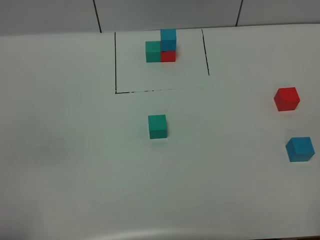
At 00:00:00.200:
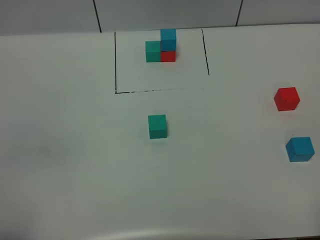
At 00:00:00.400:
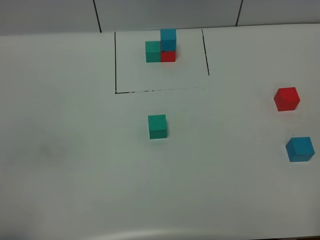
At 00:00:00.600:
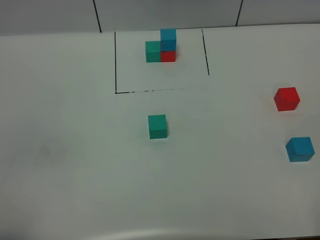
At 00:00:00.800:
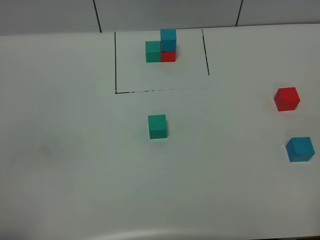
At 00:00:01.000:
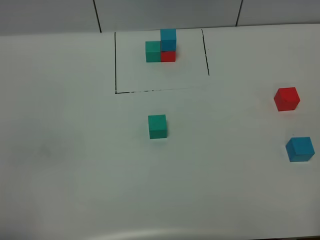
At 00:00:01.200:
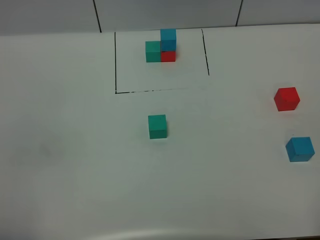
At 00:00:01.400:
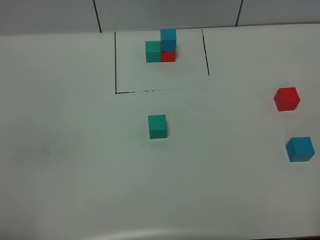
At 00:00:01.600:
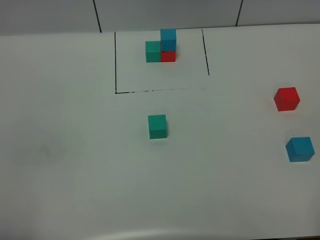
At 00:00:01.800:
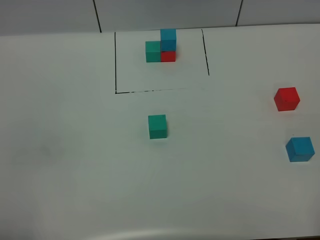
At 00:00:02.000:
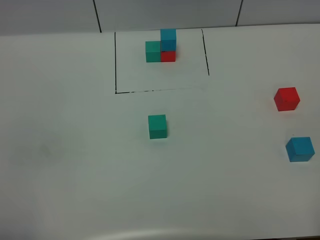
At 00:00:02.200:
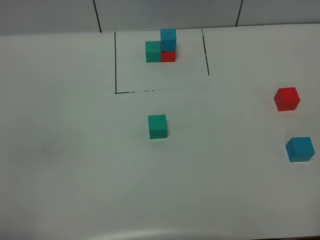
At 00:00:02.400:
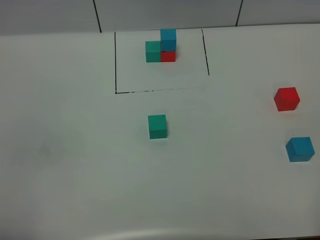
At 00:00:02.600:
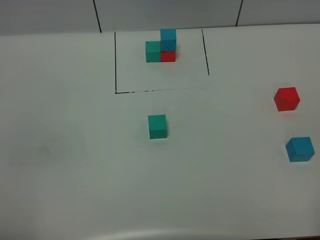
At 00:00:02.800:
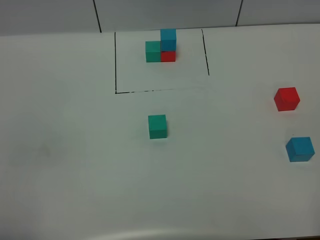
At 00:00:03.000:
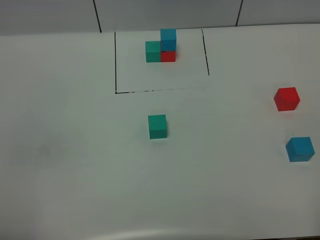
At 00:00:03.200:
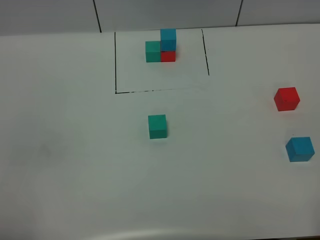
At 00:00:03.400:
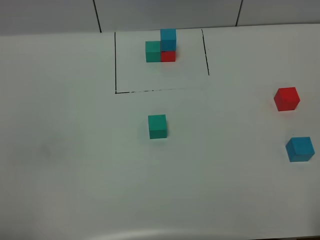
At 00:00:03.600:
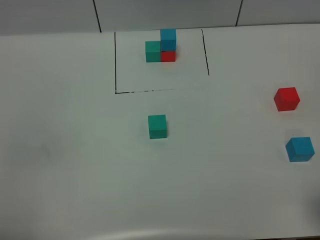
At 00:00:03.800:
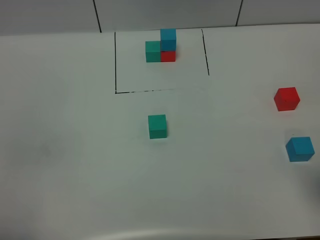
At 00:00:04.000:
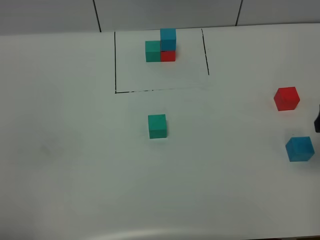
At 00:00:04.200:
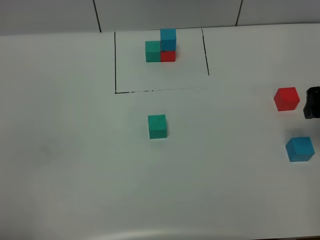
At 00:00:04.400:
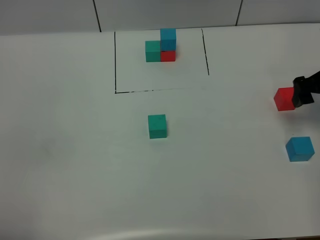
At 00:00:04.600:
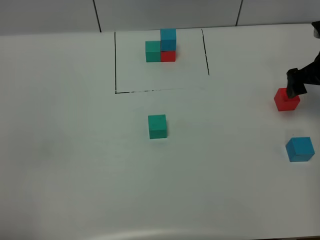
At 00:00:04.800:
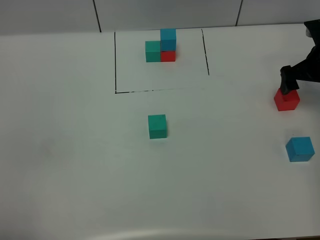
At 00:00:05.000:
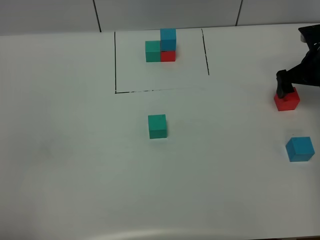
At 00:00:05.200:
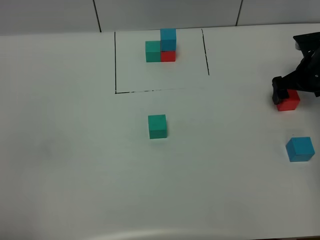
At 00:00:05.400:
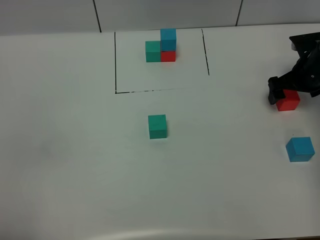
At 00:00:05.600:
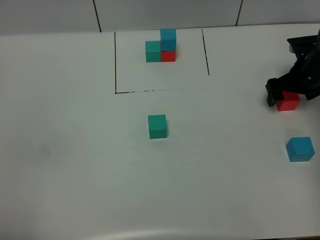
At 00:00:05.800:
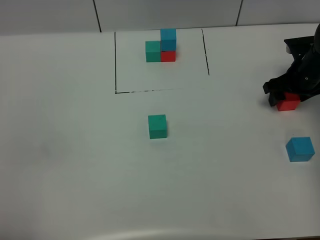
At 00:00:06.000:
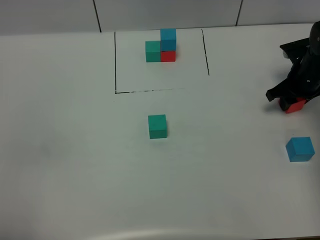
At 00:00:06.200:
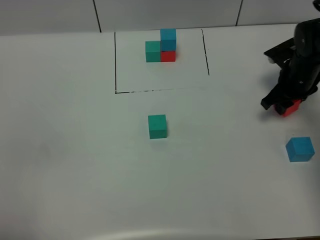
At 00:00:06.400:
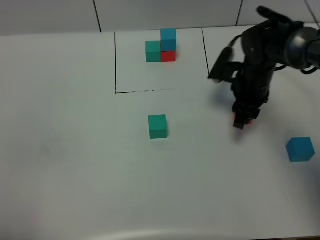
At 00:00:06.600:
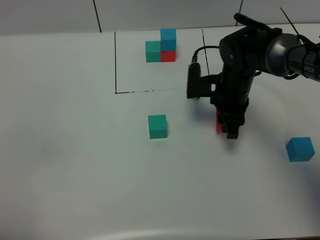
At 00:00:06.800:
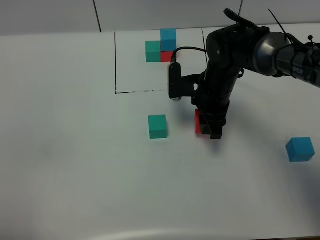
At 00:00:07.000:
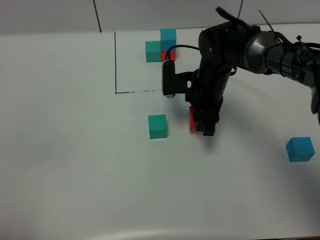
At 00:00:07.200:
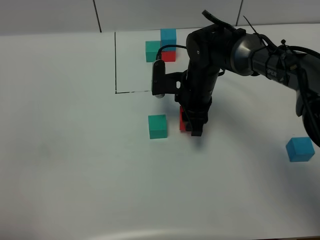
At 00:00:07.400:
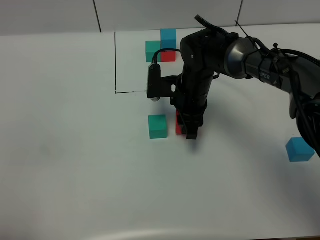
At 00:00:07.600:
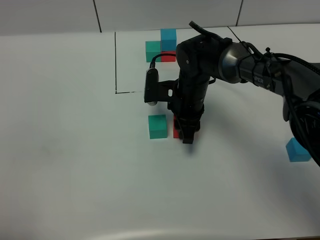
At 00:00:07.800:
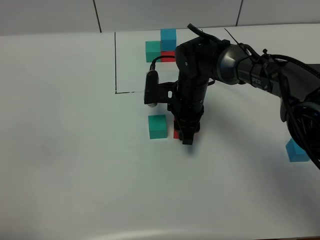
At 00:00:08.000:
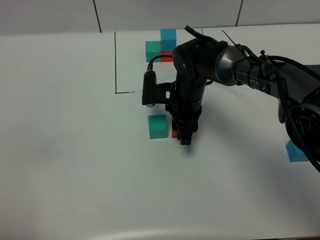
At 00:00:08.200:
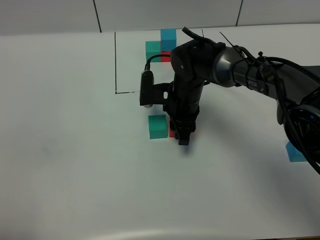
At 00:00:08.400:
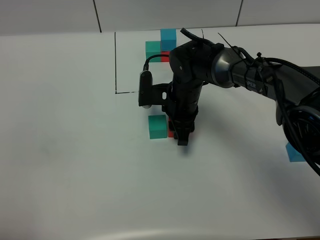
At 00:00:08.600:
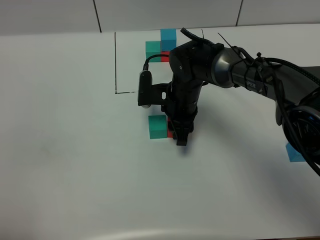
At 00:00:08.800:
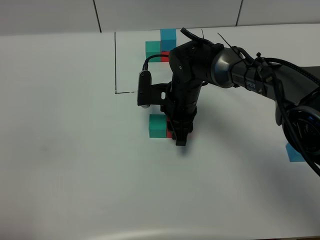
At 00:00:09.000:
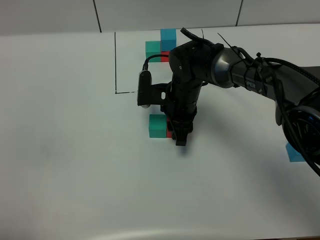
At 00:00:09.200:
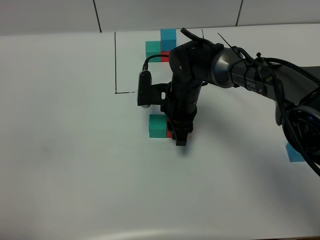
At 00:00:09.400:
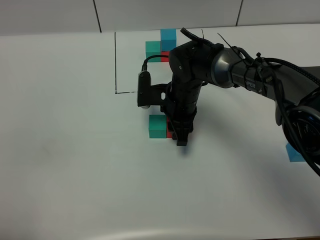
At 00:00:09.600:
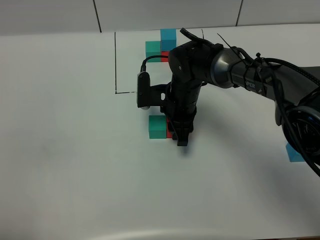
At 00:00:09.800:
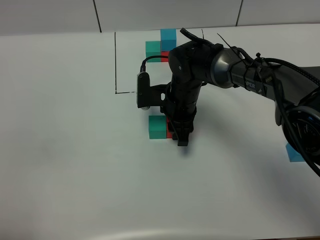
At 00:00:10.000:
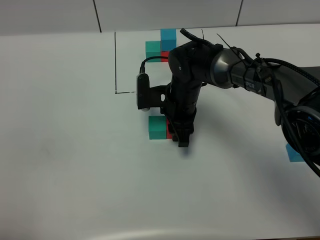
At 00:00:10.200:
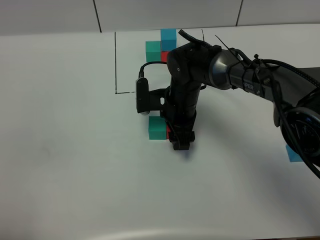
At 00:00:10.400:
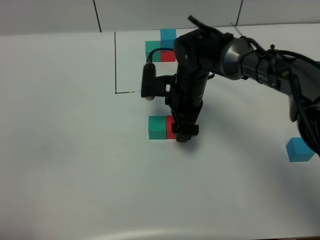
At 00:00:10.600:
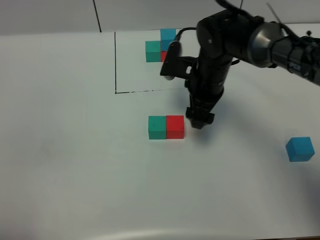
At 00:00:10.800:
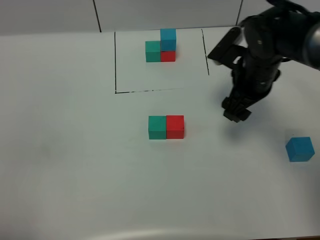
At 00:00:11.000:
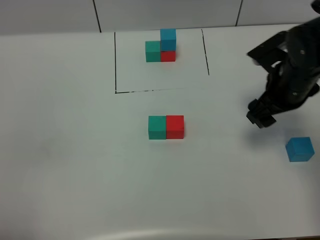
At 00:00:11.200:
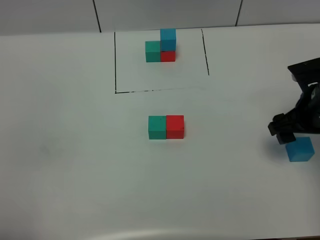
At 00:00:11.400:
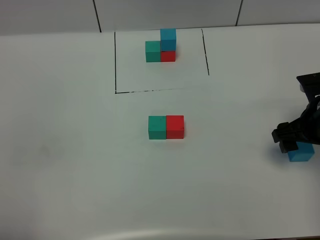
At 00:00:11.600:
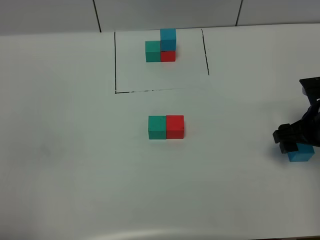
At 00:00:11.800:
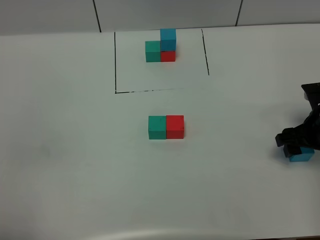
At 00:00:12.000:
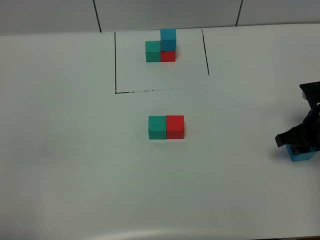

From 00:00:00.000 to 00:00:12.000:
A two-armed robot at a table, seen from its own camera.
Task of the whole recording: According to the building block template in front, assemble the scattered blocks together.
Step, from 00:00:00.000 to 00:00:10.200: Put blue the build block on the right of the red build block.
From 00:00:01.600 to 00:00:03.000: Neither gripper changes place.
From 00:00:03.000 to 00:00:04.400: The right gripper is displaced forward by approximately 35 cm.
From 00:00:04.400 to 00:00:06.000: The right gripper goes roughly 10 cm downward and forward, and closes up.
From 00:00:06.000 to 00:00:07.600: The right gripper heads to the left, covering about 25 cm.
From 00:00:07.600 to 00:00:09.000: The grippers stay close to where they were, moving slightly.
From 00:00:09.000 to 00:00:10.400: The right gripper opens its fingers.
From 00:00:10.400 to 00:00:12.000: The right gripper goes some 25 cm to the right, and closes its fingers.

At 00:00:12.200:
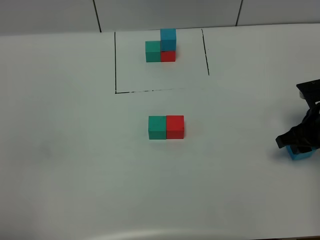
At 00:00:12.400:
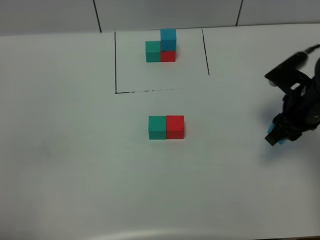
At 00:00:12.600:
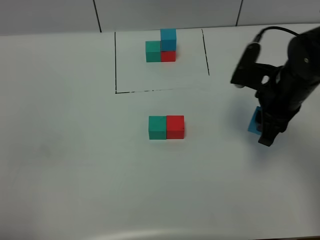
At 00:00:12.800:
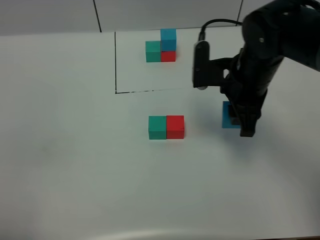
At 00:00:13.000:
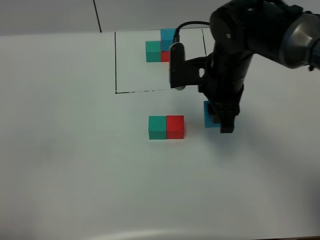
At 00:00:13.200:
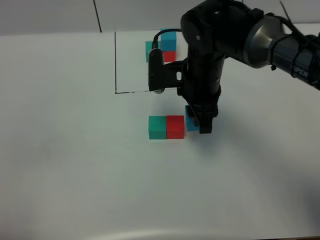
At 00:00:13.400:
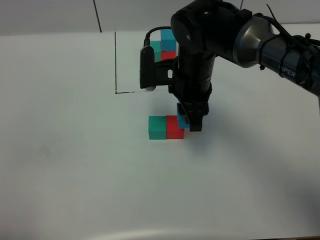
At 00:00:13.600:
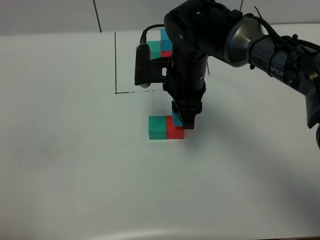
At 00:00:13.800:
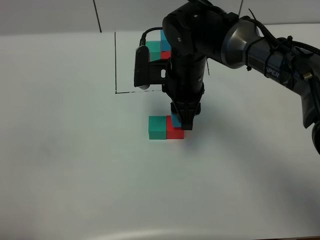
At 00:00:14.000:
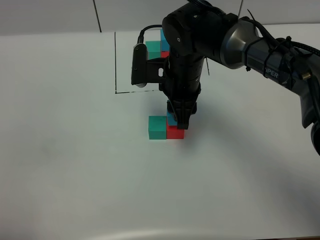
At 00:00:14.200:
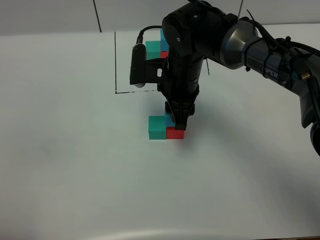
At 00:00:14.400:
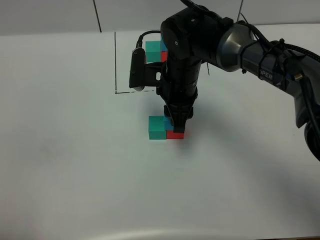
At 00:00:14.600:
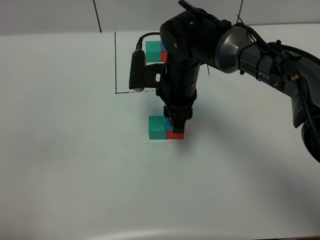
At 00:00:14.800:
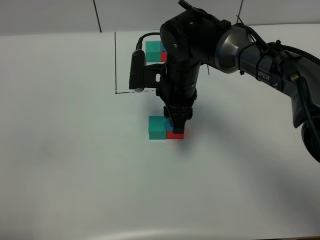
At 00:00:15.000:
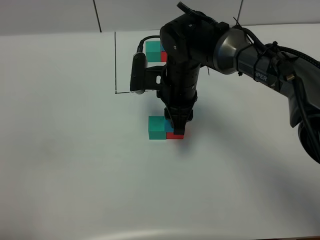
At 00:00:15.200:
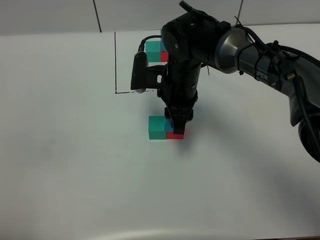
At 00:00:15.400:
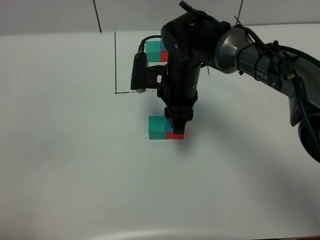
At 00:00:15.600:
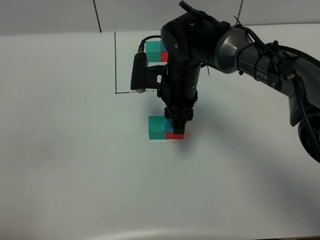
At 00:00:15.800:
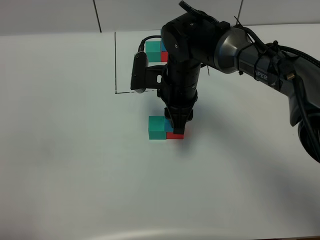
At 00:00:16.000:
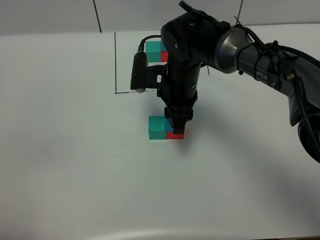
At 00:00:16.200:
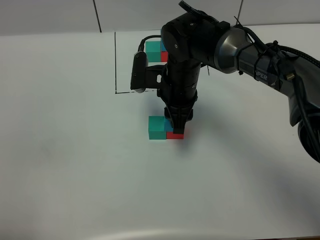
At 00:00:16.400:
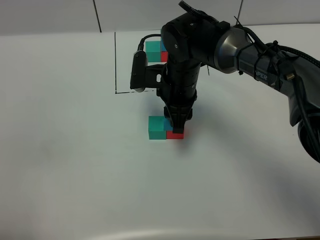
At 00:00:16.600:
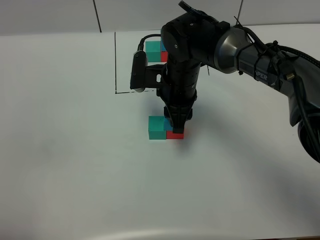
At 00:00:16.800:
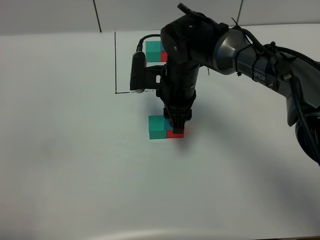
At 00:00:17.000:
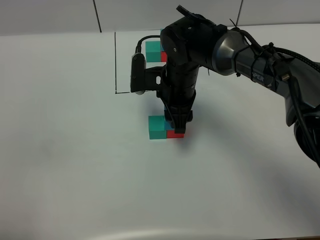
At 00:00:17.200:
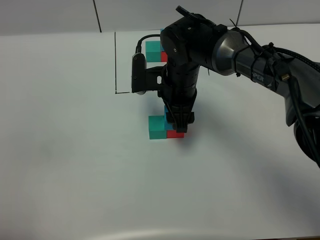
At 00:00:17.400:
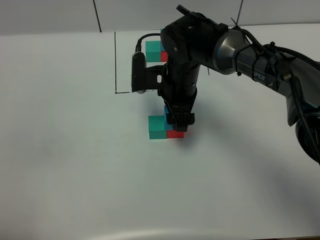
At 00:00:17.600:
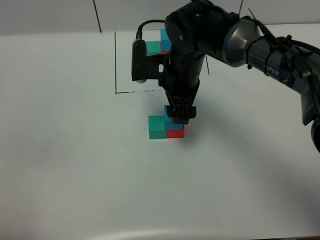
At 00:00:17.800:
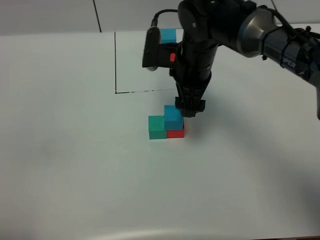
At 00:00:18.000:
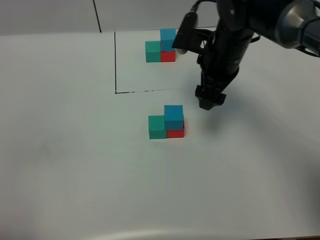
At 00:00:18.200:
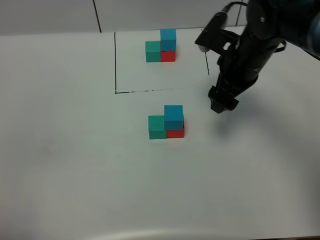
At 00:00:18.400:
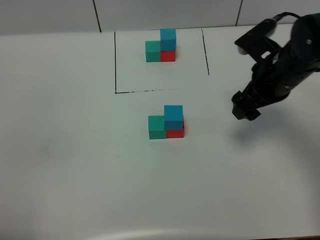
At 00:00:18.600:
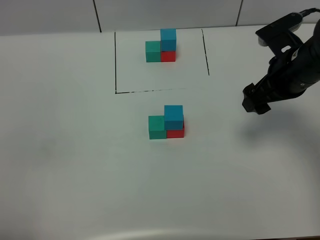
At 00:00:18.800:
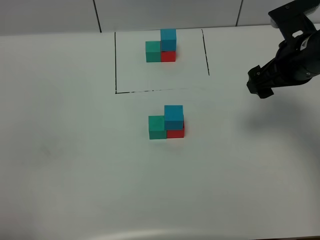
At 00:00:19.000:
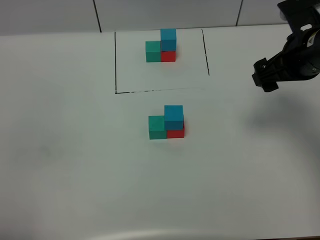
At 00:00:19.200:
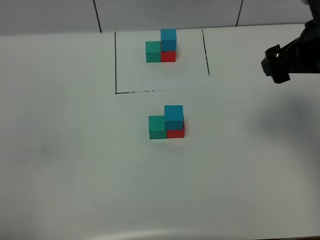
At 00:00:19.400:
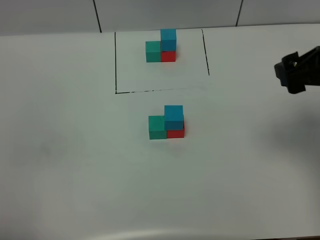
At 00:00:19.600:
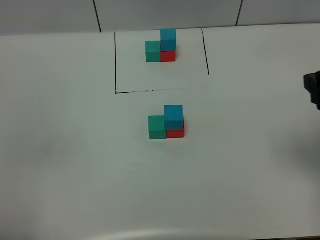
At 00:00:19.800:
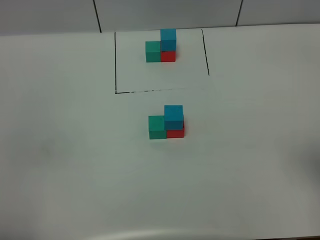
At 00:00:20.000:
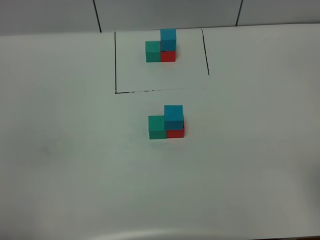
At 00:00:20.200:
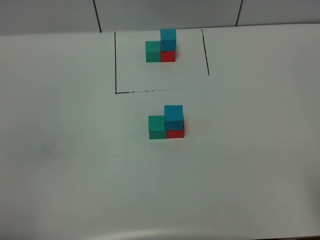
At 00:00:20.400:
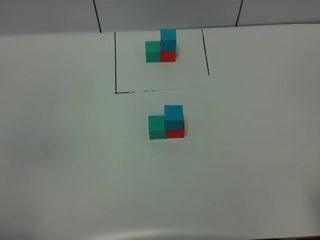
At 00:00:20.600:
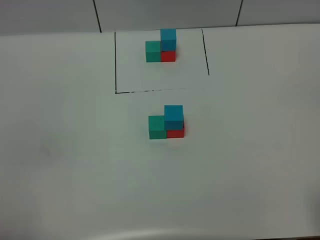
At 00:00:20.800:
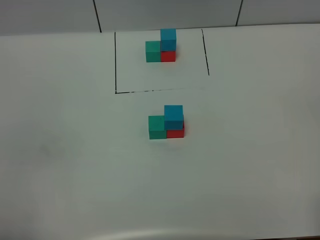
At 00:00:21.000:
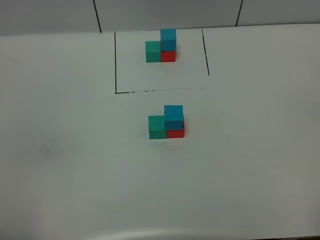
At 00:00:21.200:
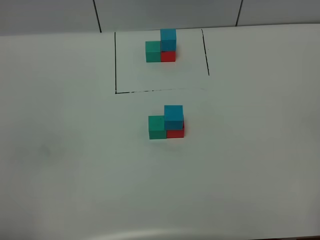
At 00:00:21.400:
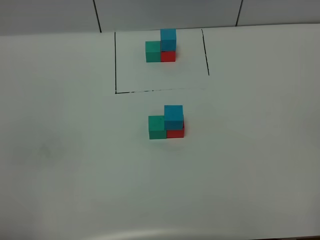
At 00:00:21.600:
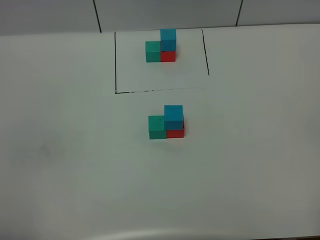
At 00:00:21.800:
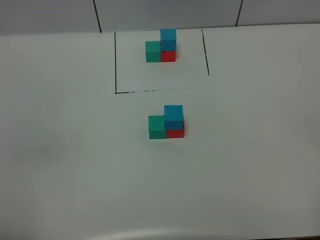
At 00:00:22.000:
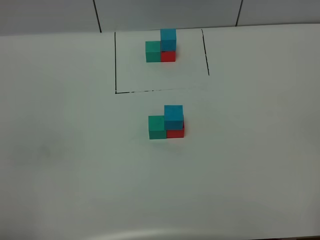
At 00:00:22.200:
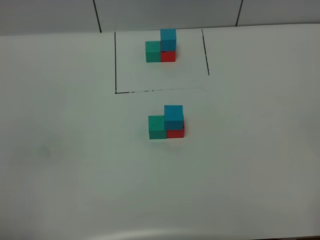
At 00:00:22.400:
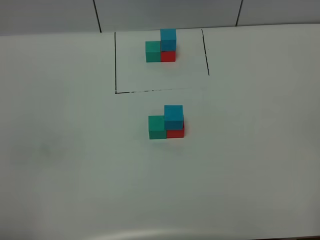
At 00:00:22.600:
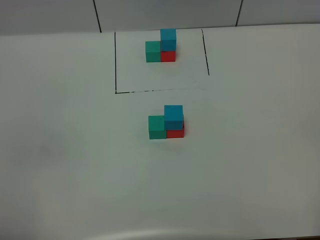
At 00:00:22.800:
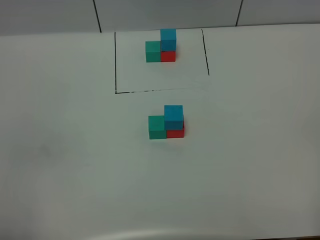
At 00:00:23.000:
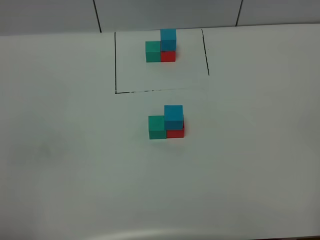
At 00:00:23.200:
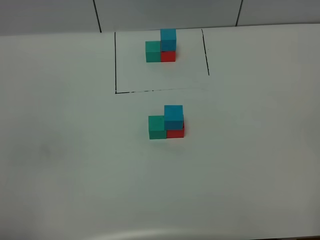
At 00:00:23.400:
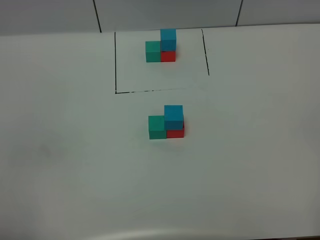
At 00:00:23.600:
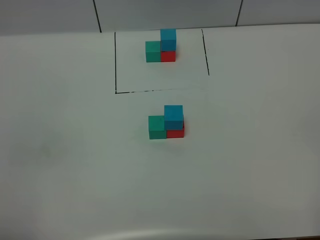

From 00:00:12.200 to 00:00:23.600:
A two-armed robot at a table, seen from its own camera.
Task of the whole recording: According to the building block template in front, assemble the scattered blocks together.
From 00:00:12.200 to 00:00:13.600: The right gripper goes approximately 25 cm to the left.
From 00:00:13.600 to 00:00:15.000: The grippers move only a little.
From 00:00:15.000 to 00:00:16.400: Neither gripper changes place.
From 00:00:16.400 to 00:00:17.800: The right gripper shifts by about 5 cm, and opens.
From 00:00:17.800 to 00:00:19.400: The right gripper heads to the right, backward and upward, covering some 25 cm.
From 00:00:19.400 to 00:00:20.800: The right gripper travels backward by some 25 cm.
From 00:00:22.200 to 00:00:23.600: Neither gripper changes place.
